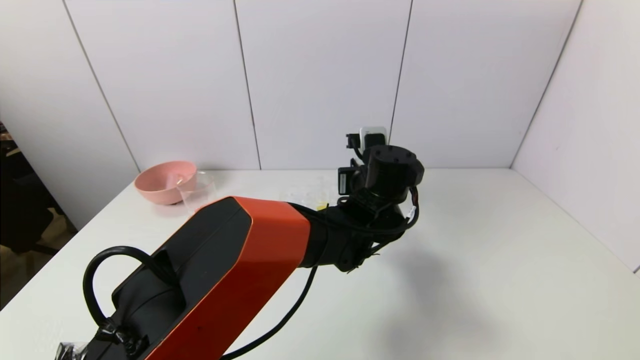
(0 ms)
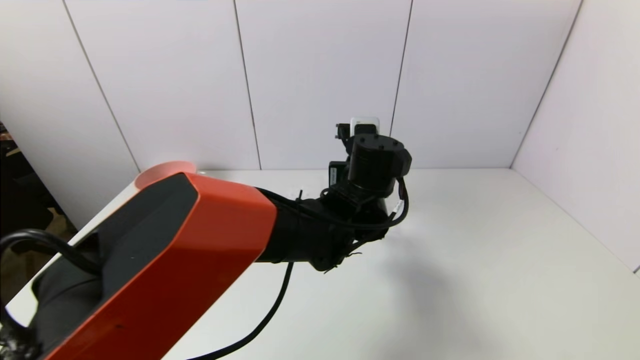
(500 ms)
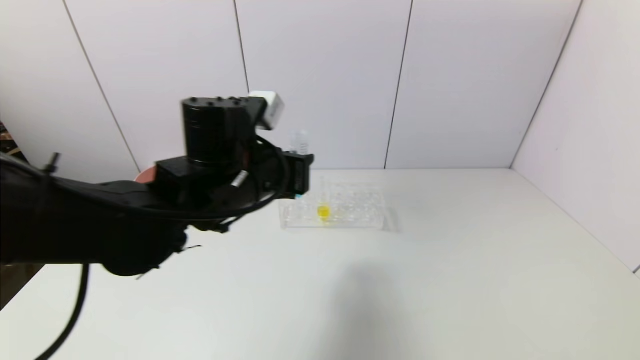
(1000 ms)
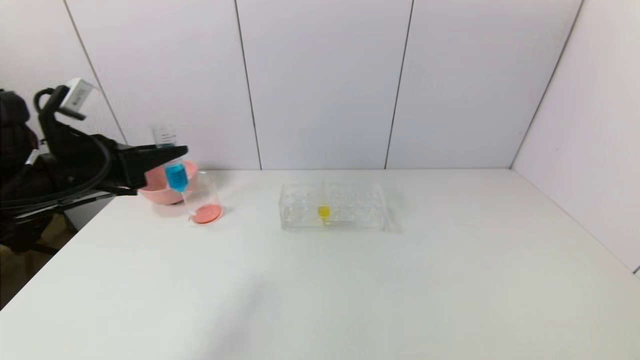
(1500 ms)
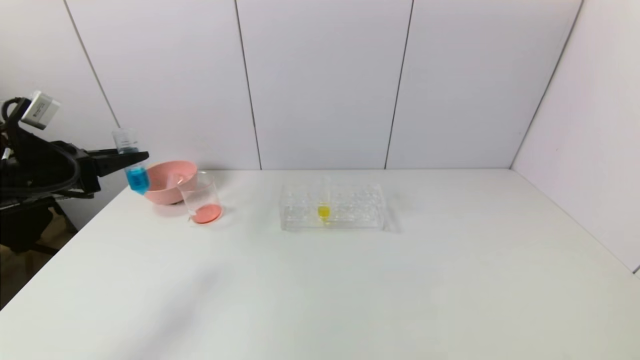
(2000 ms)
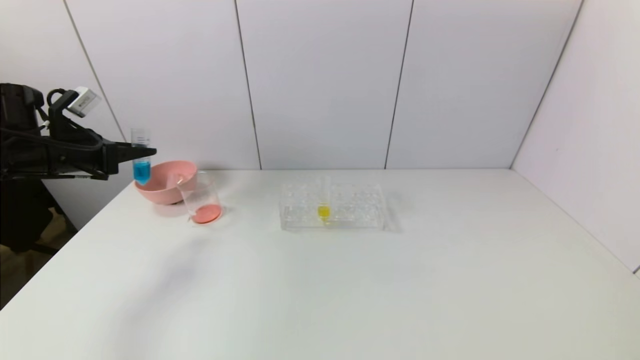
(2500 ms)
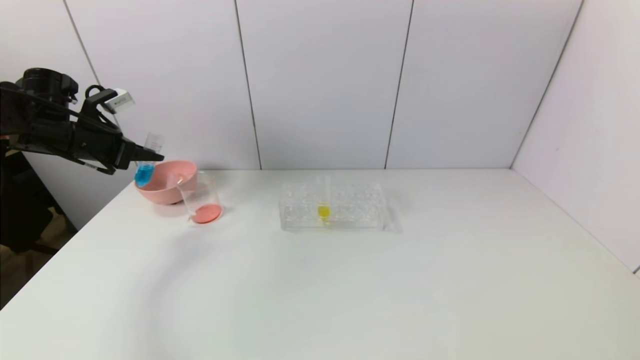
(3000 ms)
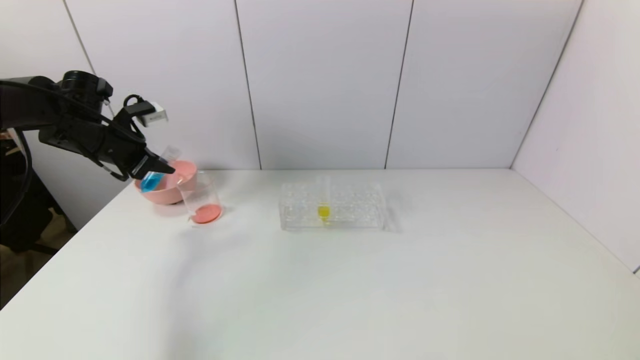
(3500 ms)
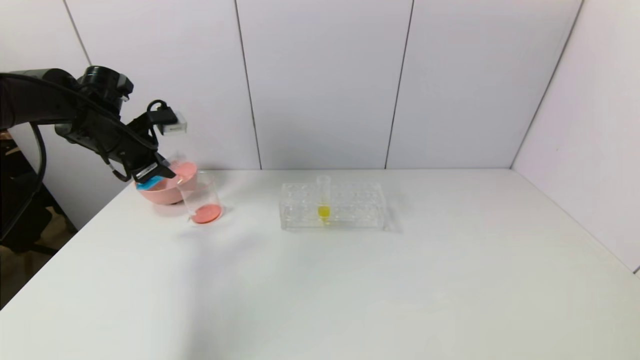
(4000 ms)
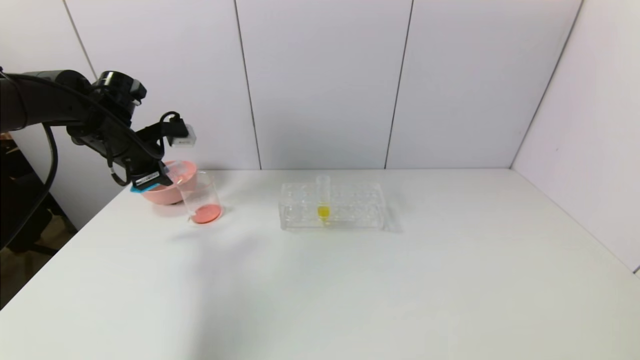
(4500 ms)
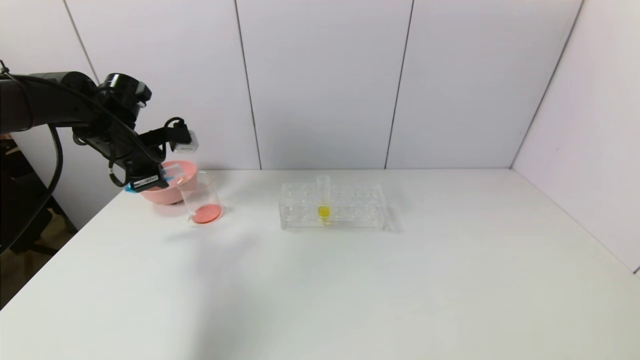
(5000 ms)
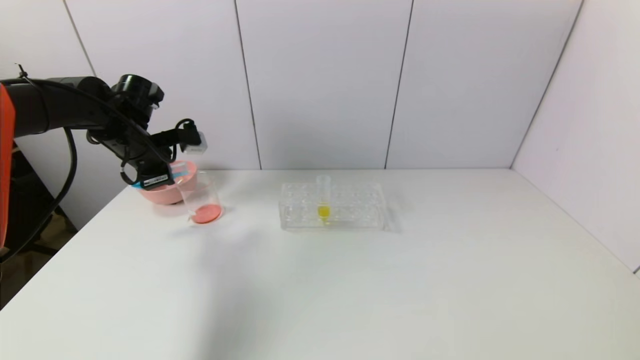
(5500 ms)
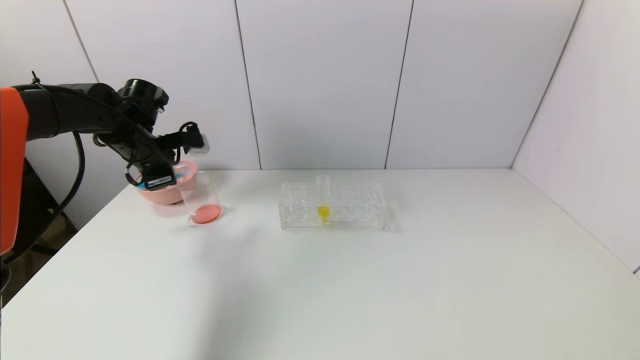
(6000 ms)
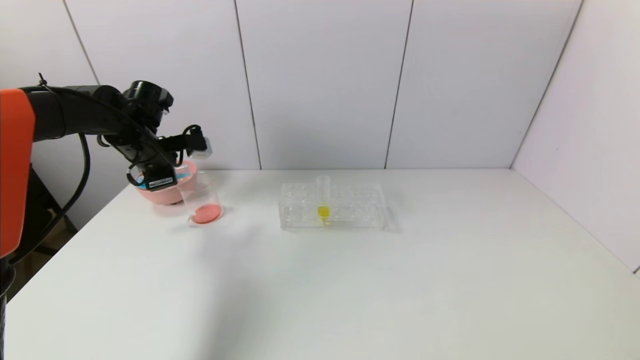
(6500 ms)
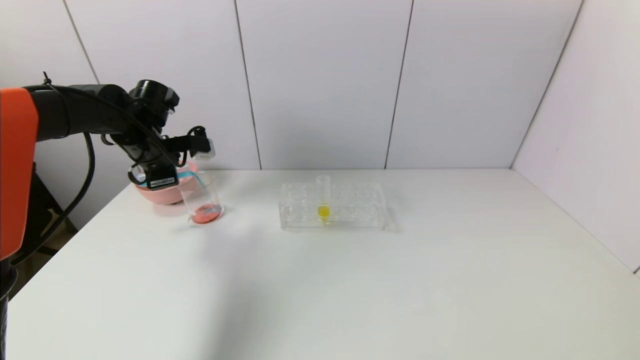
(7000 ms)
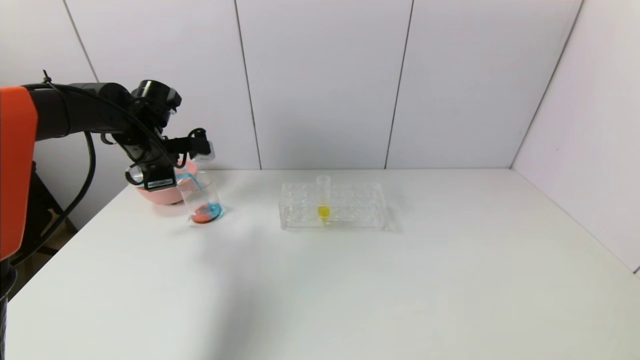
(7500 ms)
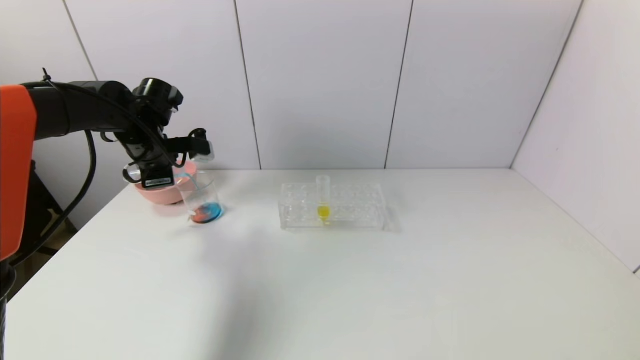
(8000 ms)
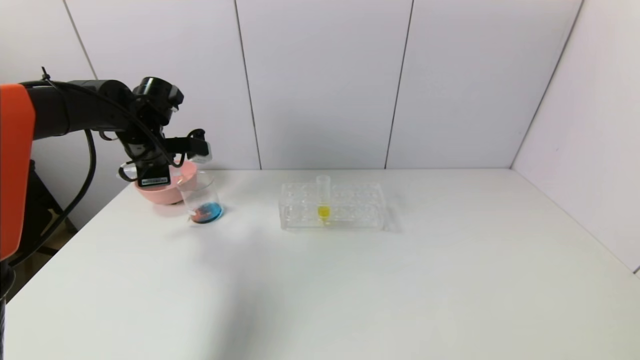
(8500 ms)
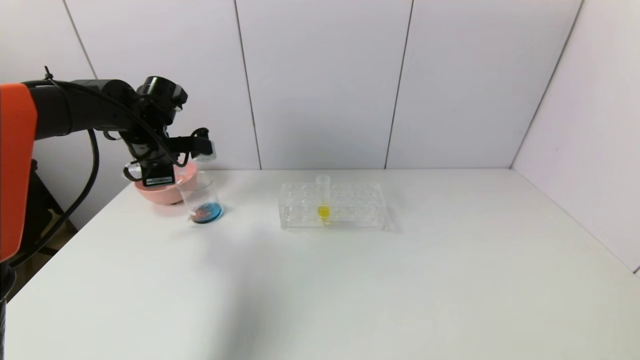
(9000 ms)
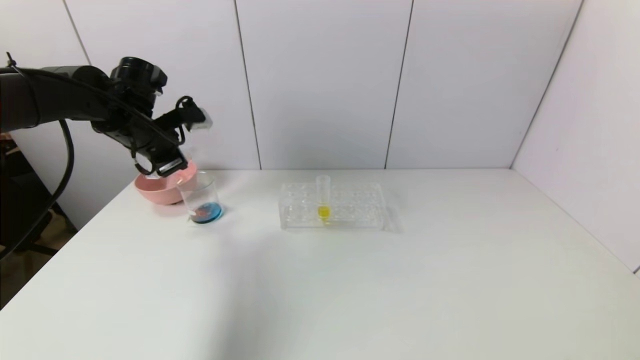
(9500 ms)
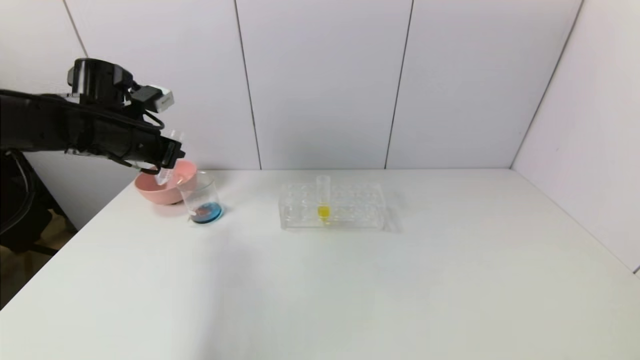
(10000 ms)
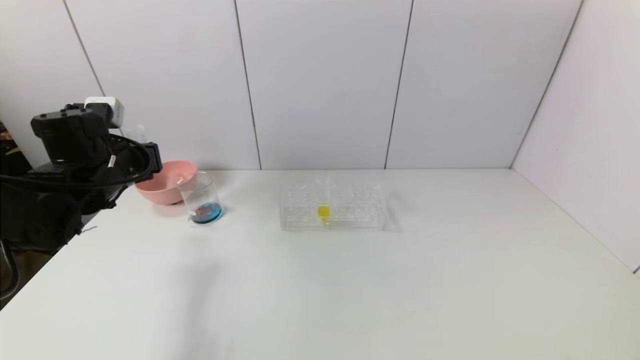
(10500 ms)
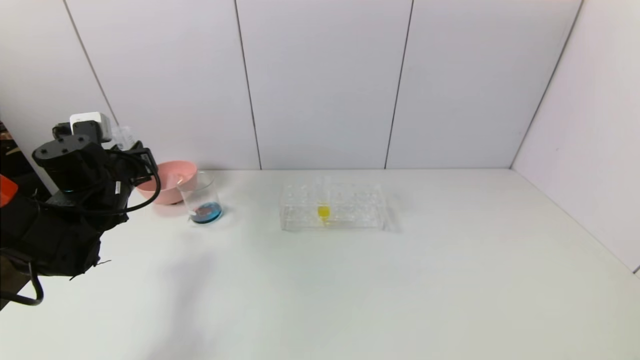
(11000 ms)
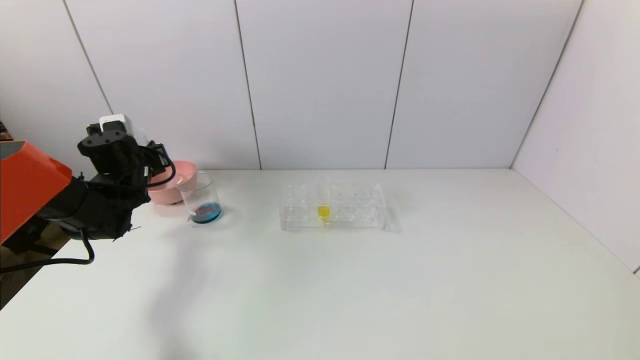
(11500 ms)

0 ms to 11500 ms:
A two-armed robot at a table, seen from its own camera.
Task of the whole recording: pick up the test tube with red pigment and the test tube with blue pigment by grippers and pour them into the container.
Step, 0 ms to 9000 ms: Pour the blue reagent into the graduated cylinder with the left gripper.
0 ms to 2000 ms: The left gripper goes roughly 50 cm to the left.
2000 ms to 4000 ms: The left gripper shifts approximately 10 cm forward.
6000 ms to 7500 ms: The grippers move only a little.
9500 ms to 11500 ms: The left gripper moves downward and to the left, roughly 10 cm.

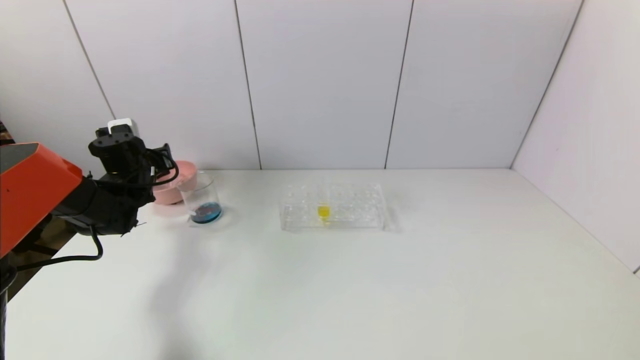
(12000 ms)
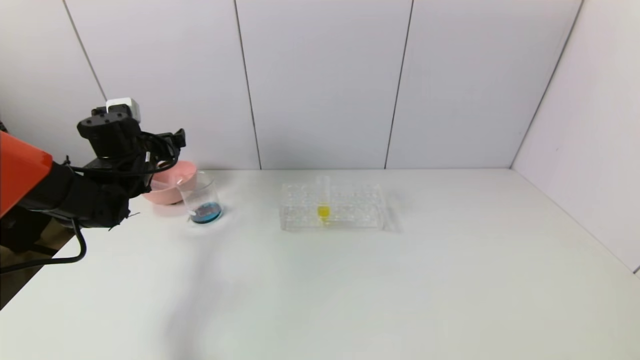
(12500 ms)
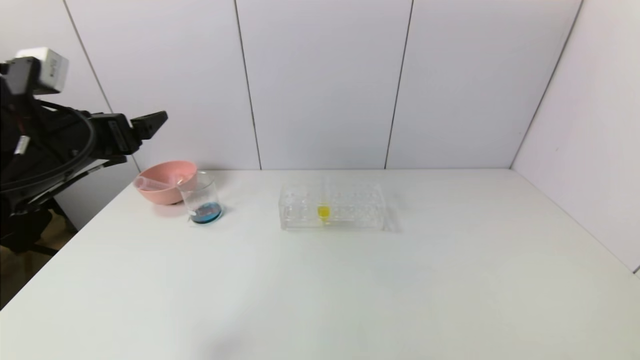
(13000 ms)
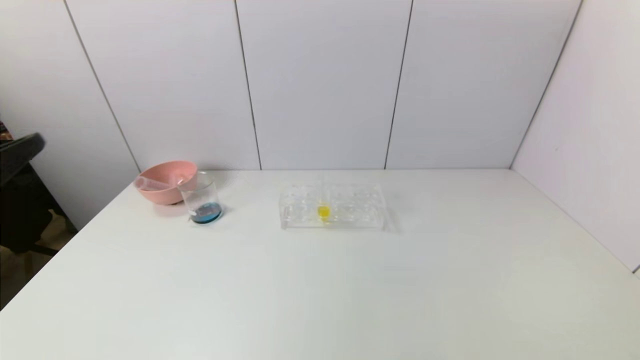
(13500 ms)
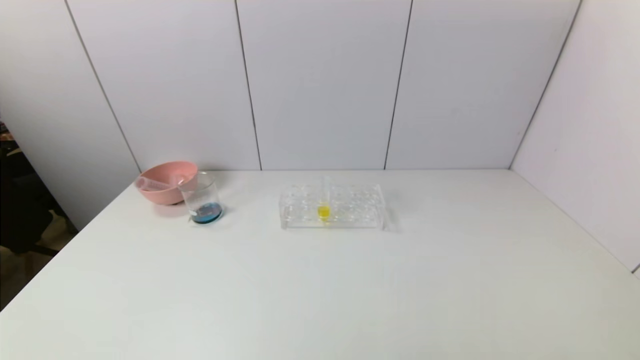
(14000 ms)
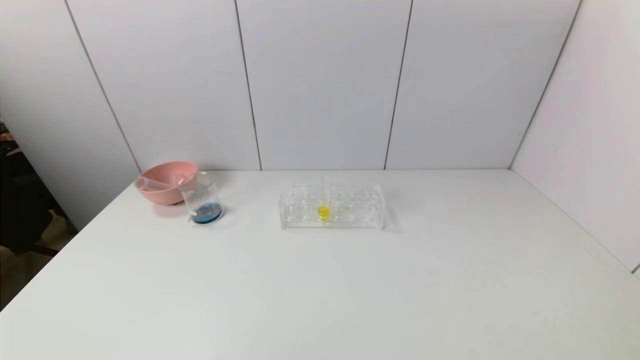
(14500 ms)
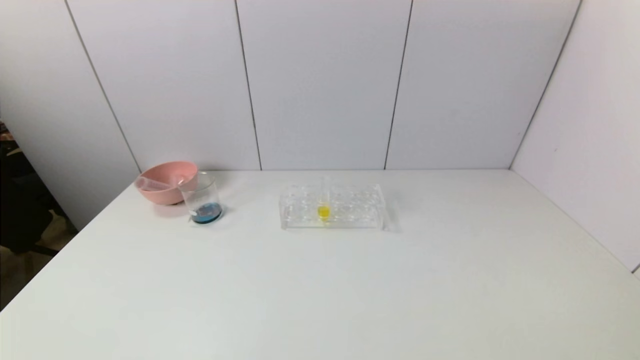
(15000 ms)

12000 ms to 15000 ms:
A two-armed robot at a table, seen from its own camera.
Task of the whole recording: pick up the test tube with red pigment and the test tube with blue pigment by grippers and pour them into the container.
12000 ms to 13500 ms: The left gripper moves backward and upward, about 40 cm, and opens.
